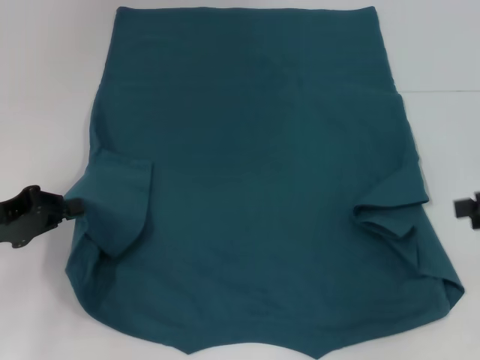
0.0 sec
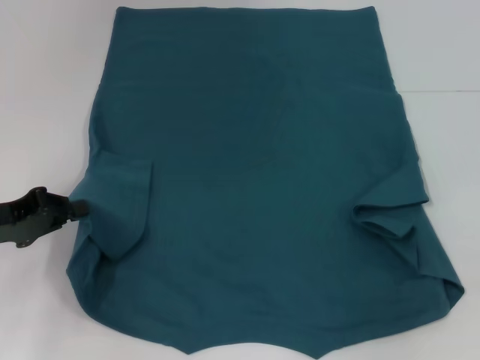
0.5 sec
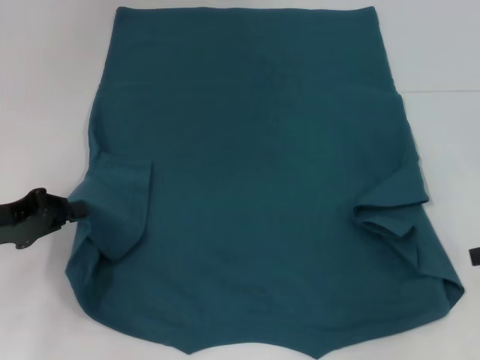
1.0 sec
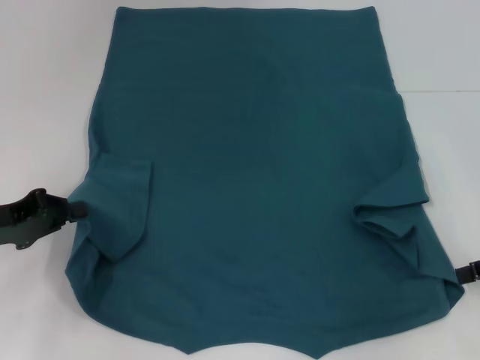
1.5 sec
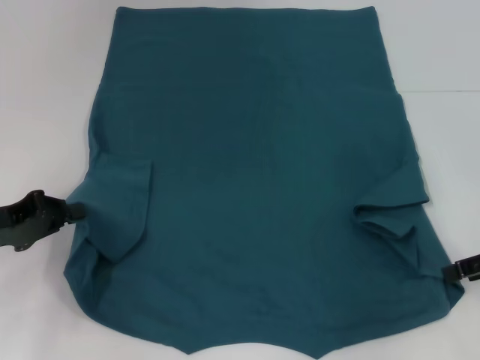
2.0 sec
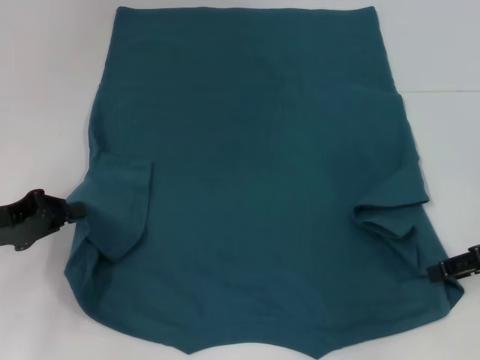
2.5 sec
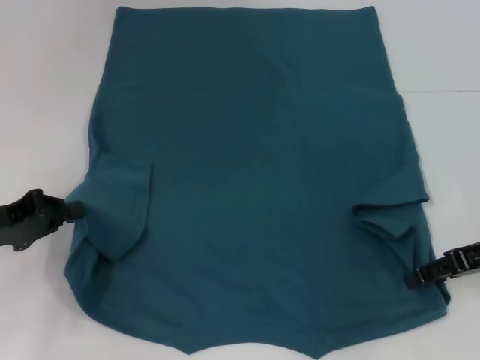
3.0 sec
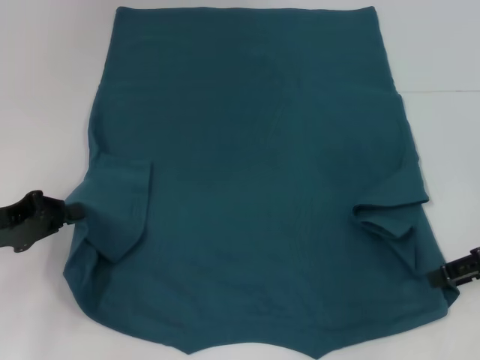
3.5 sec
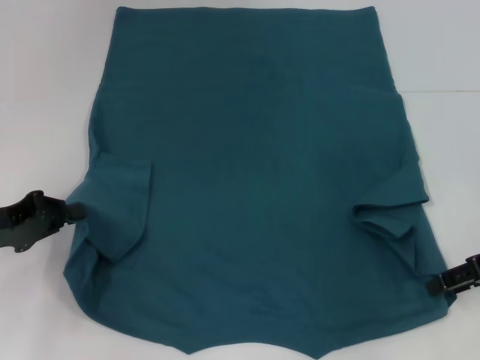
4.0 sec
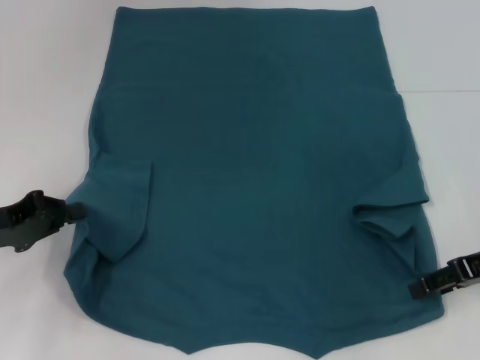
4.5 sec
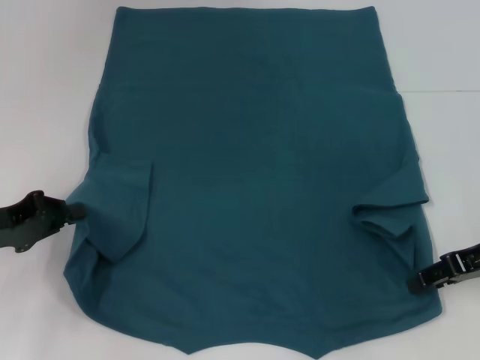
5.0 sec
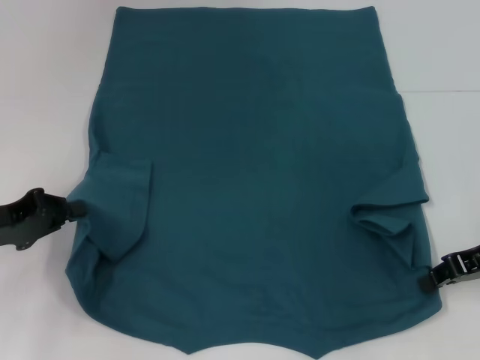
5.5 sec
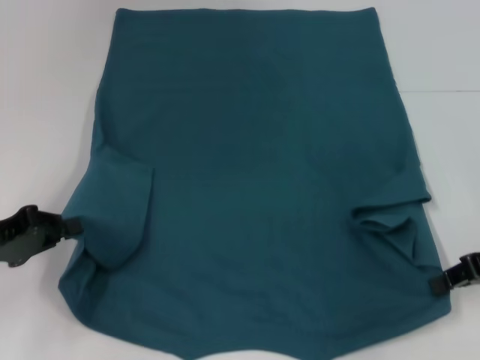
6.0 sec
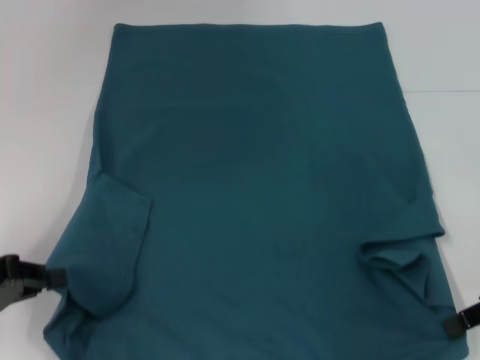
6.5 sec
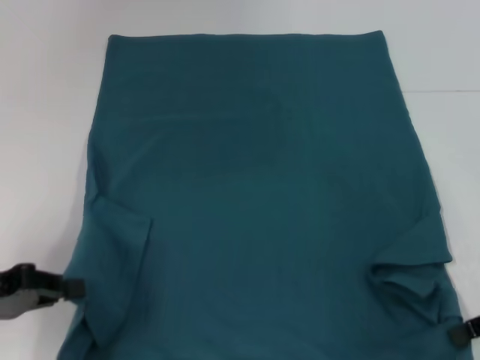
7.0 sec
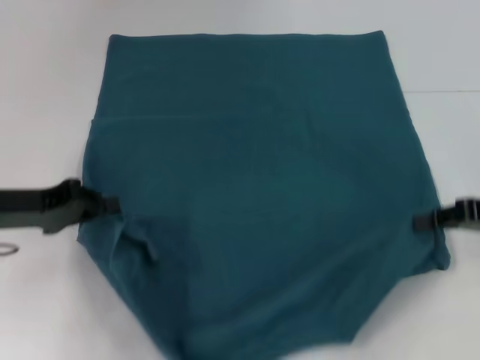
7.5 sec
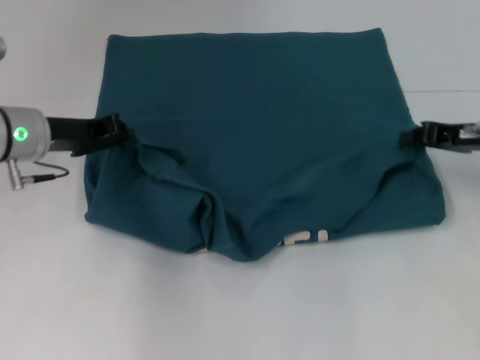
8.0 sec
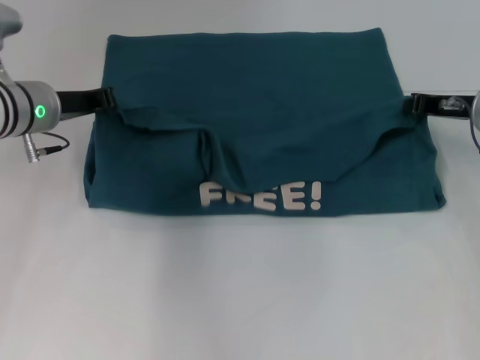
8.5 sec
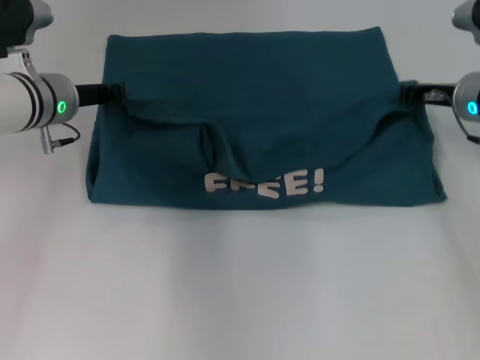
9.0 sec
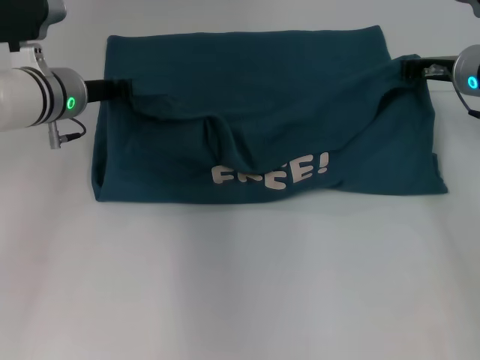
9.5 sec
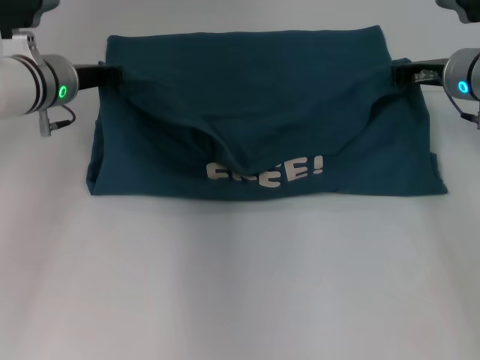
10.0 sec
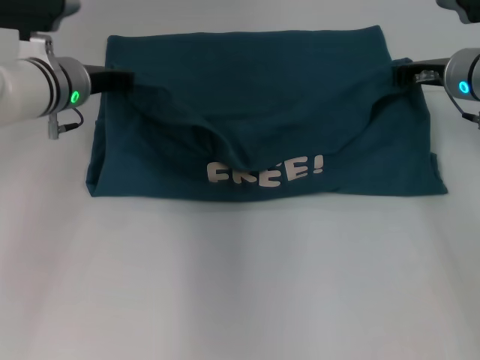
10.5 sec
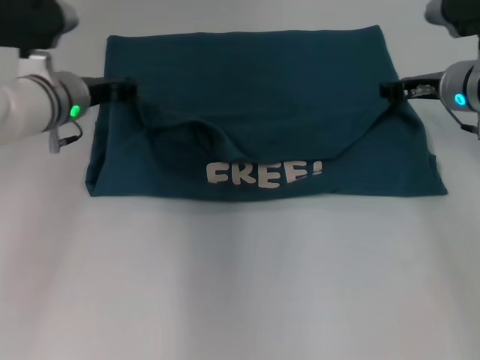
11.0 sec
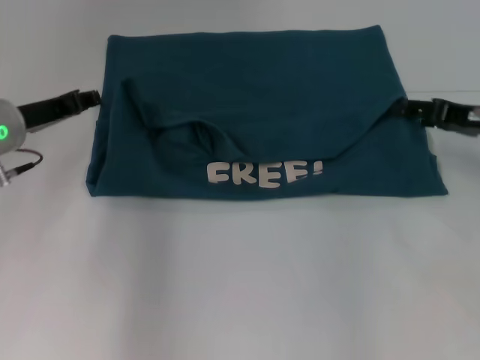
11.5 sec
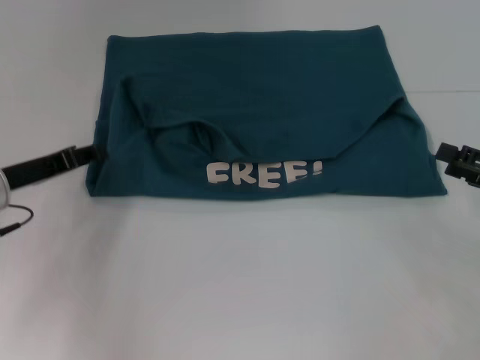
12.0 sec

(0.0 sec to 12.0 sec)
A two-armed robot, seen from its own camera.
Step, 0.0 sec - 5.5 sec: Grab the bottom right corner with your right hand.
Step, 6.0 sec - 11.0 sec: Fold the clothes to the left.
Step, 6.0 sec - 11.0 sec: Fold the clothes to the right.
0.0 sec - 2.0 sec: The grippers stay close to where they were, moving slightly.
4.0 sec - 6.0 sec: The right gripper closes up.
6.0 sec - 8.0 sec: The right gripper goes approximately 10 cm forward. The left gripper goes roughly 15 cm forward and to the right.
8.0 sec - 10.0 sec: The right gripper travels forward and to the left by approximately 10 cm, while the left gripper goes approximately 5 cm forward.
10.0 sec - 12.0 sec: The left gripper shifts about 15 cm backward, to the left and downward, and opens up, while the right gripper heads backward and to the right, covering about 20 cm, and opens up.

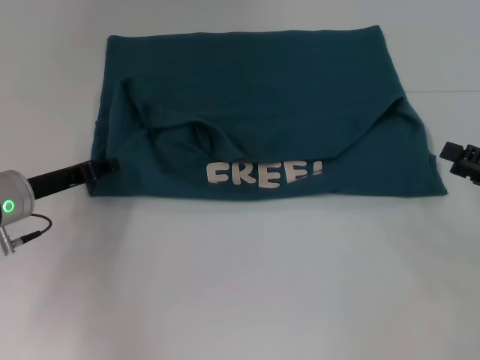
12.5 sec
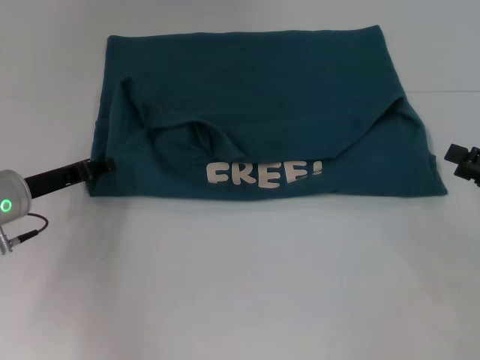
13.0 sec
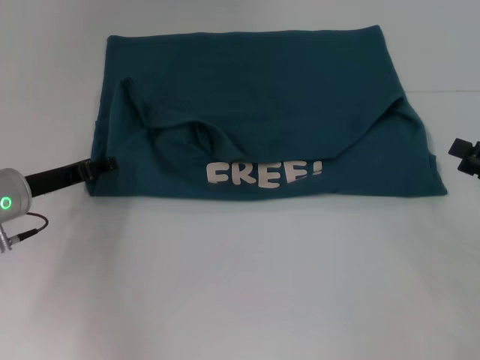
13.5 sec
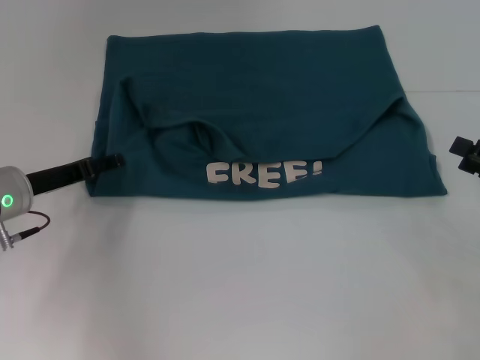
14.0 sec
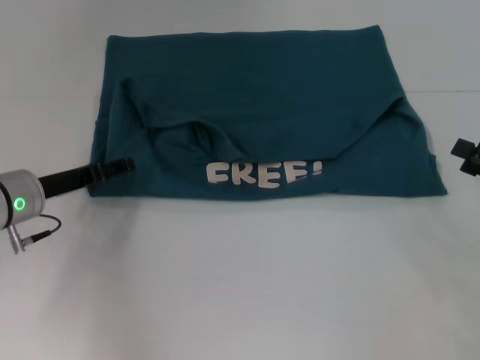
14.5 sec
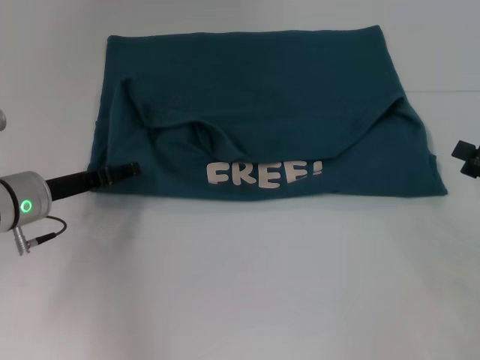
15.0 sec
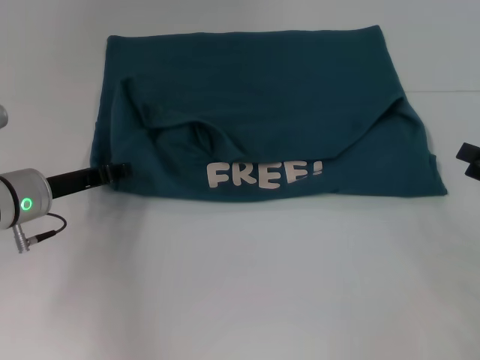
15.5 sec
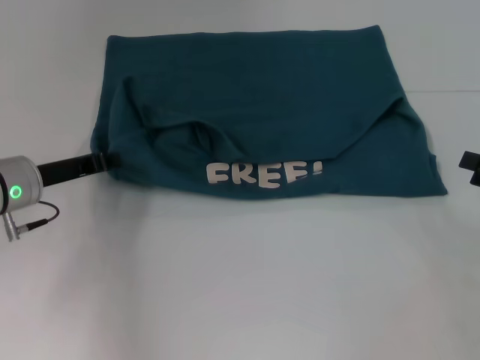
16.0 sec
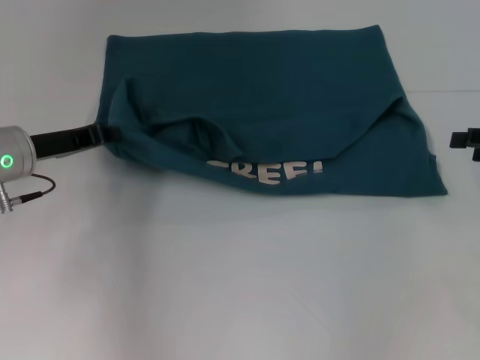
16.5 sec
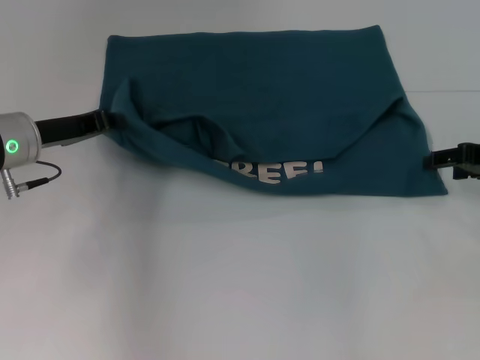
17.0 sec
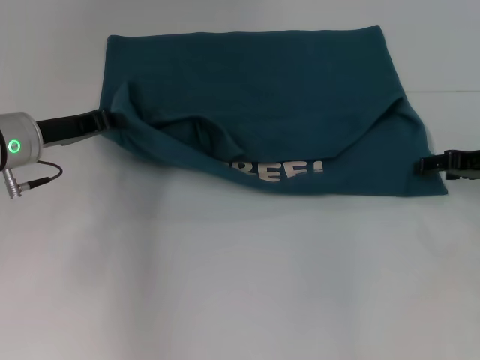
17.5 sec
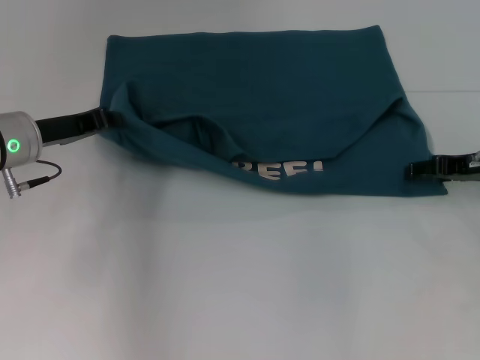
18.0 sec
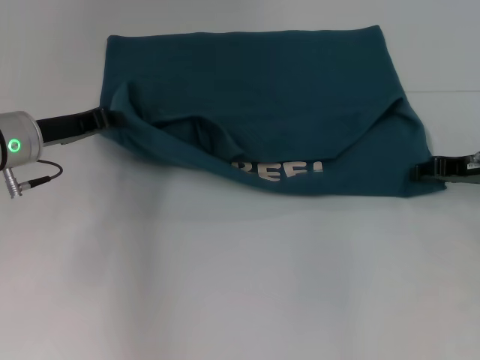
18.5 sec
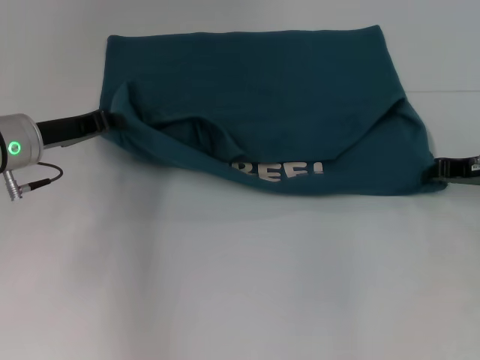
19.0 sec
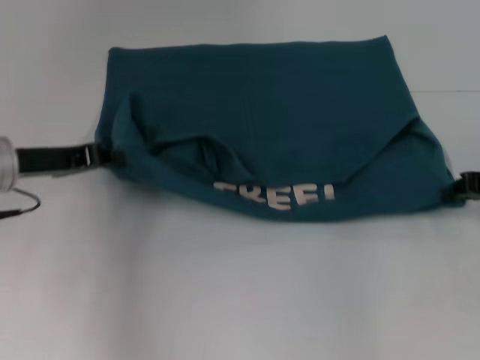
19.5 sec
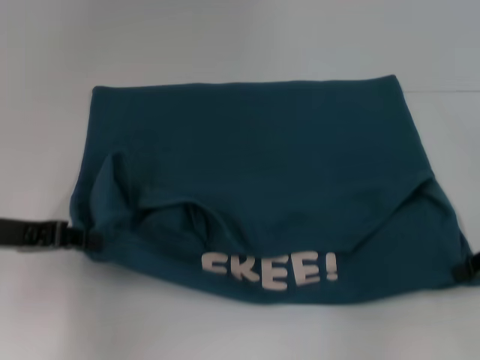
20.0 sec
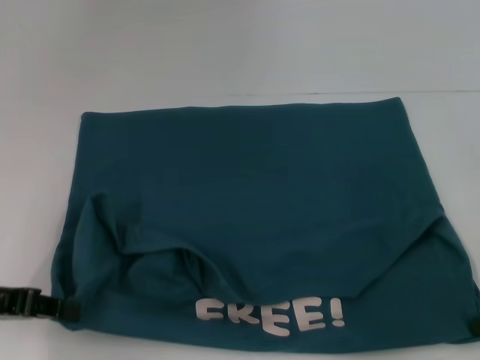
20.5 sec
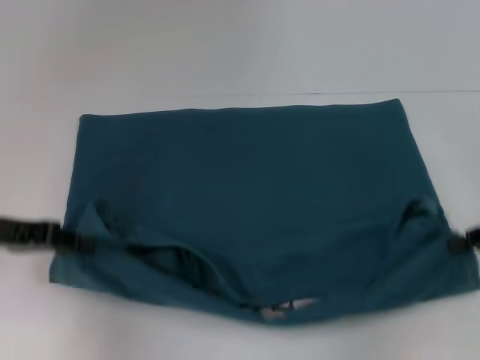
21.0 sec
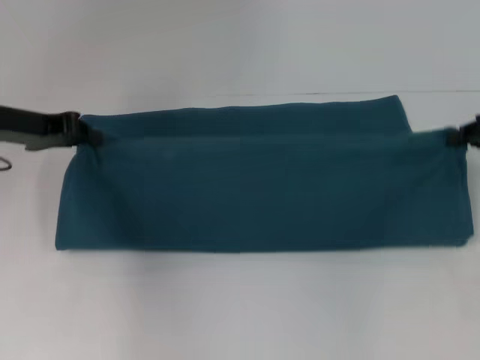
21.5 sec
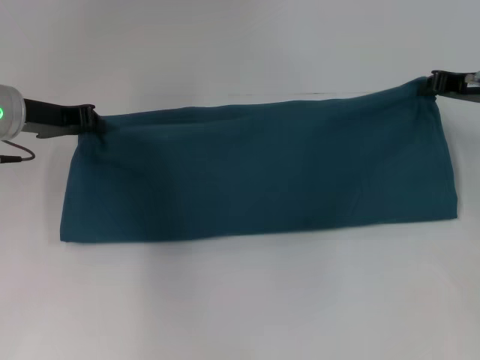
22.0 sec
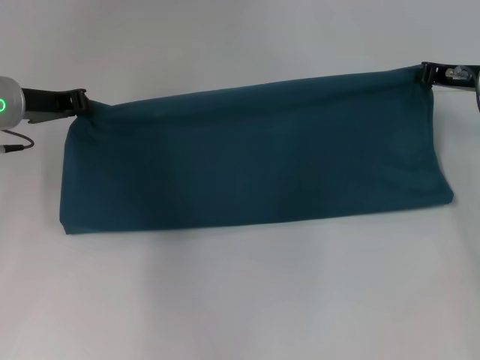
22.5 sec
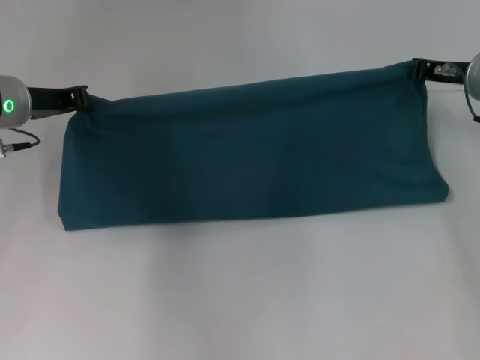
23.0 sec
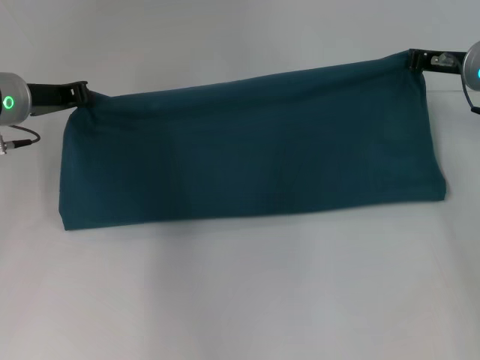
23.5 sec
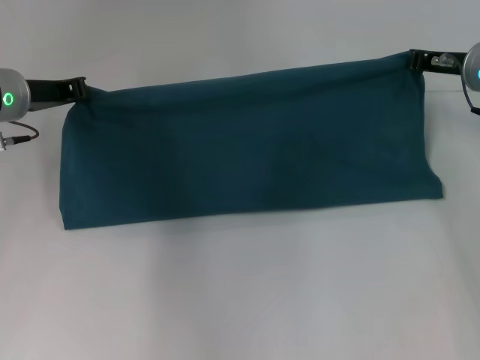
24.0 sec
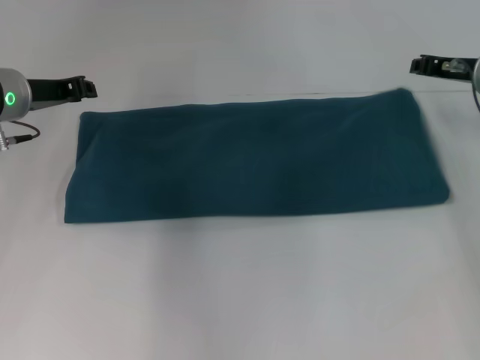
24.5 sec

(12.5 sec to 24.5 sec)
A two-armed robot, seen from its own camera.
Step, 12.5 sec - 20.5 sec: Pull the clothes with your left hand.
Step, 12.5 sec - 20.5 sec: Pull the clothes with your right hand.
12.5 sec - 14.5 sec: The left gripper opens up.
14.5 sec - 16.5 sec: The left gripper closes. Meanwhile the right gripper travels forward and upward by roughly 10 cm.
16.5 sec - 18.5 sec: The right gripper travels to the left by roughly 5 cm.
18.5 sec - 20.5 sec: The left gripper travels backward and to the left by about 15 cm, while the right gripper shifts some 10 cm backward and to the right, and closes up.
20.5 sec - 22.5 sec: The left gripper moves forward, approximately 15 cm. Meanwhile the right gripper is displaced forward and to the left by about 20 cm.
22.5 sec - 24.5 sec: The grippers make only small movements.

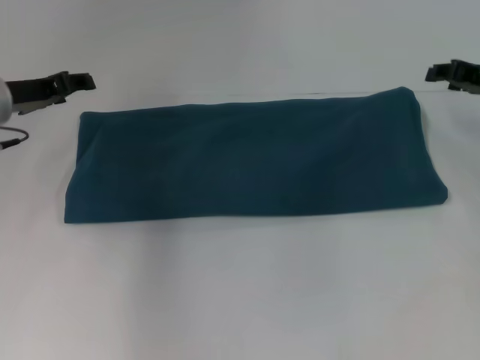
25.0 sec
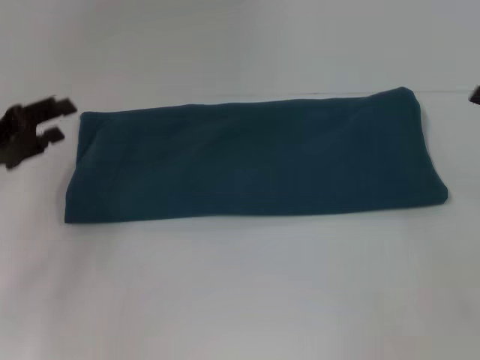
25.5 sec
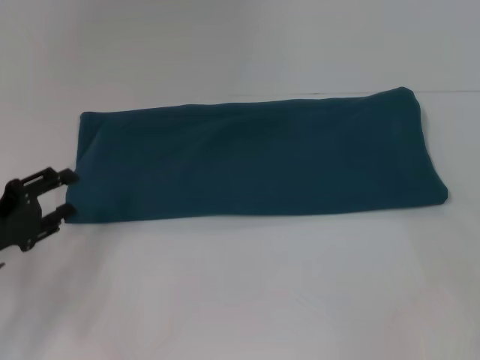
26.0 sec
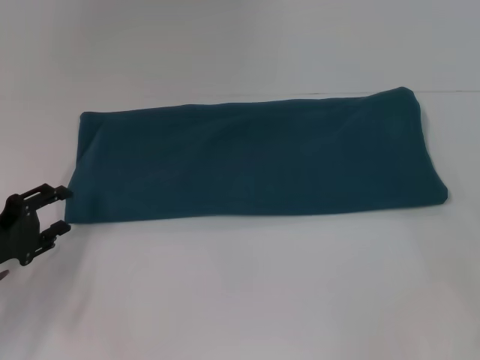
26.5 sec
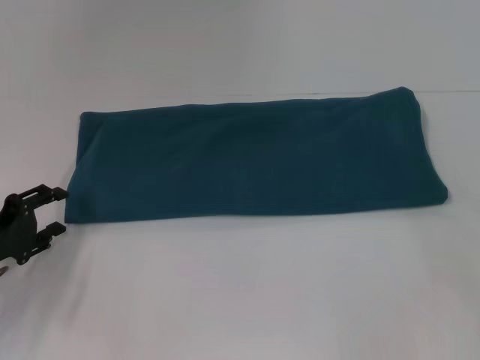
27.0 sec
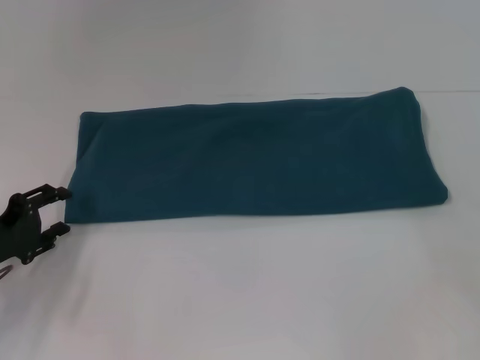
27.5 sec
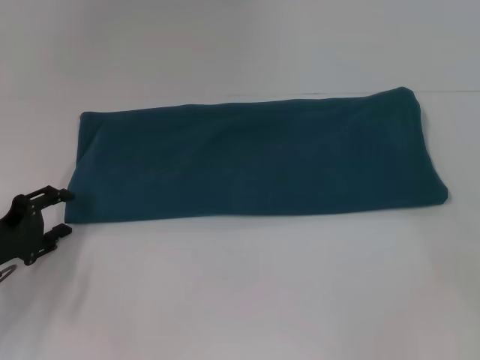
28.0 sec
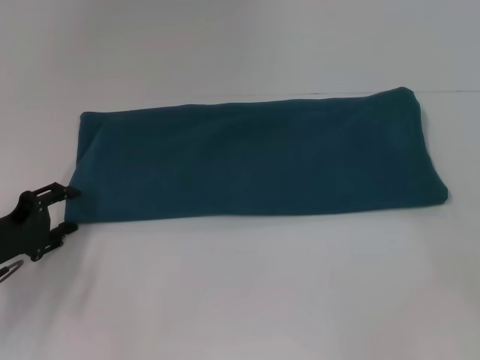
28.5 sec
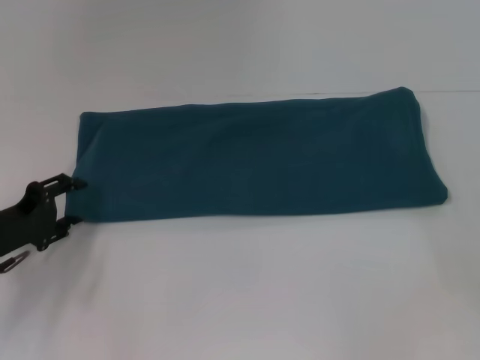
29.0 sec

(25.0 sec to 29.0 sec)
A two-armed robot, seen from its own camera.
25.0 sec - 27.0 sec: The left gripper is displaced backward and downward by approximately 15 cm. The right gripper shifts some 15 cm backward and to the right, and opens.
27.0 sec - 29.0 sec: The grippers make only small movements.
